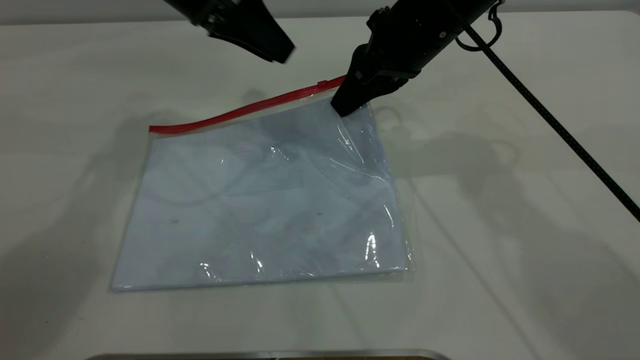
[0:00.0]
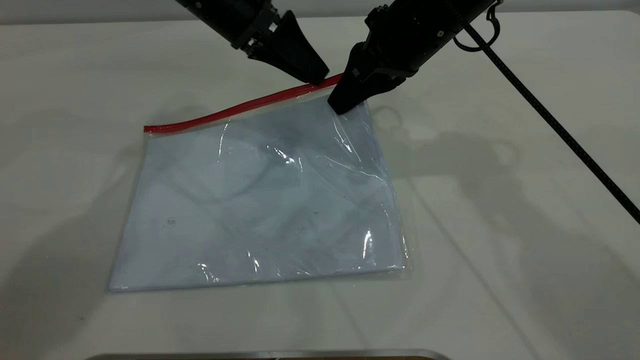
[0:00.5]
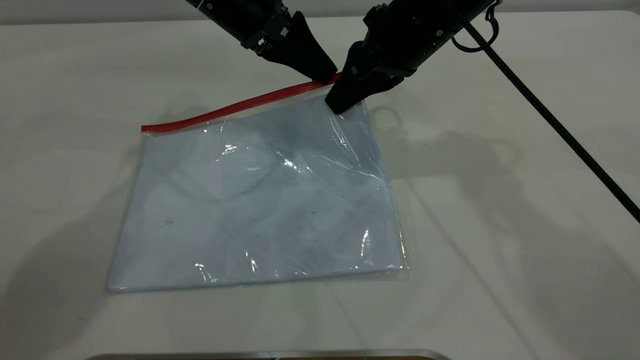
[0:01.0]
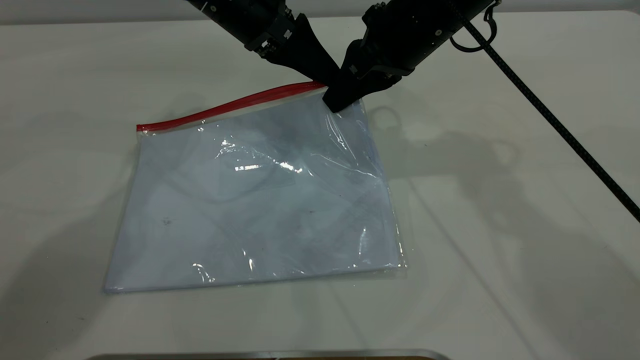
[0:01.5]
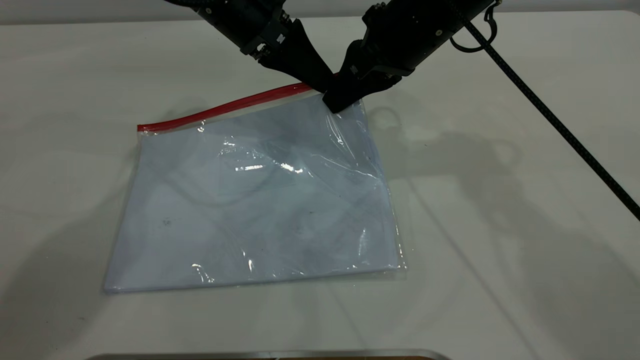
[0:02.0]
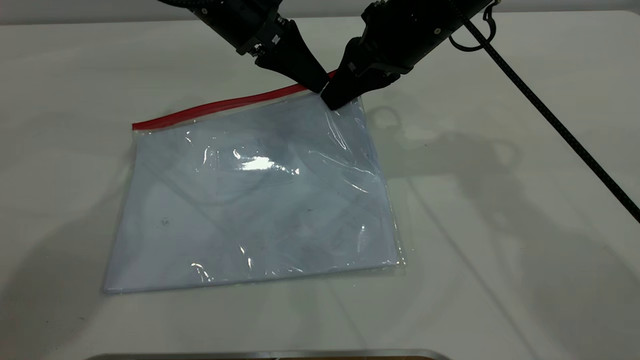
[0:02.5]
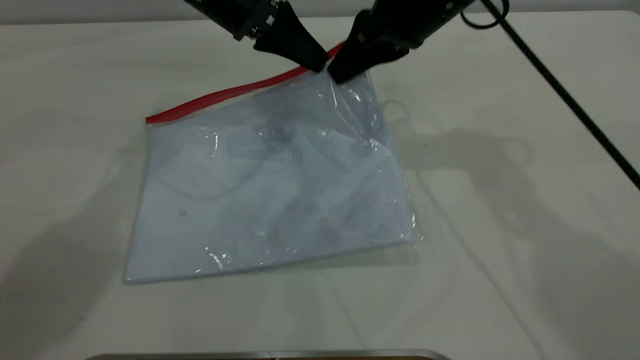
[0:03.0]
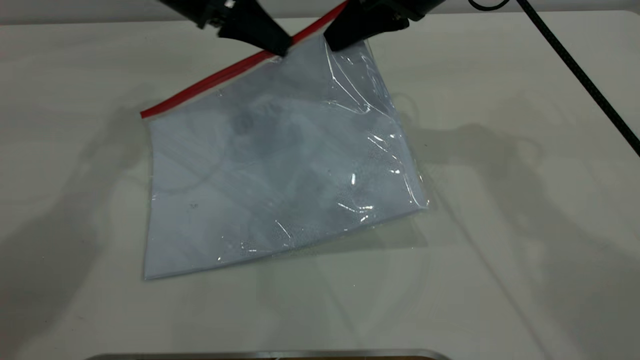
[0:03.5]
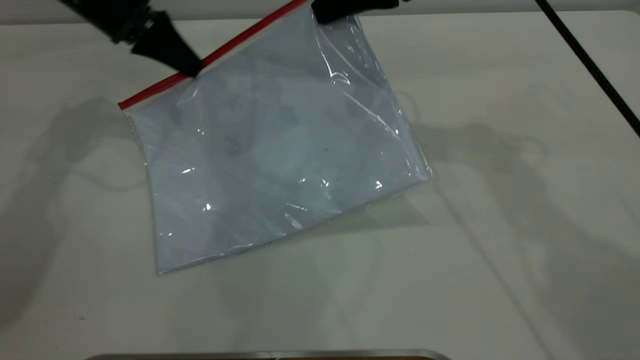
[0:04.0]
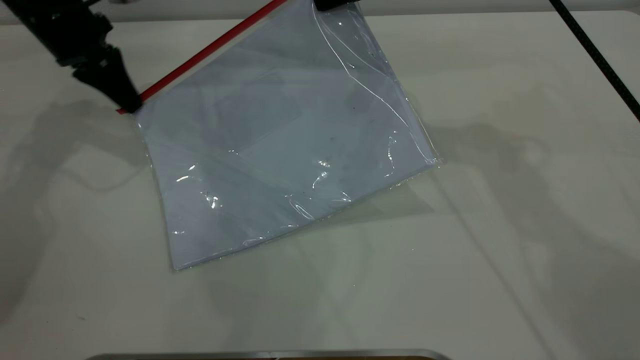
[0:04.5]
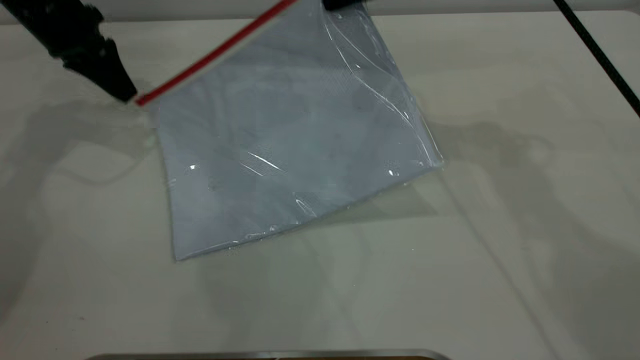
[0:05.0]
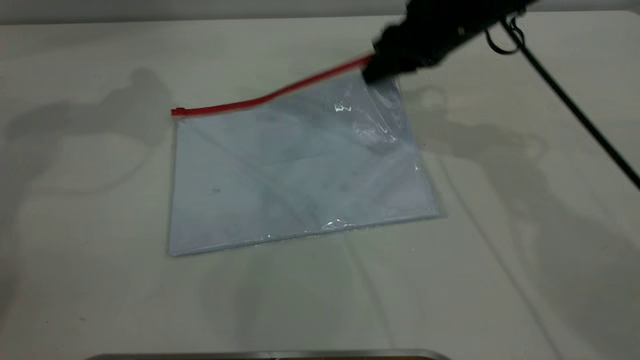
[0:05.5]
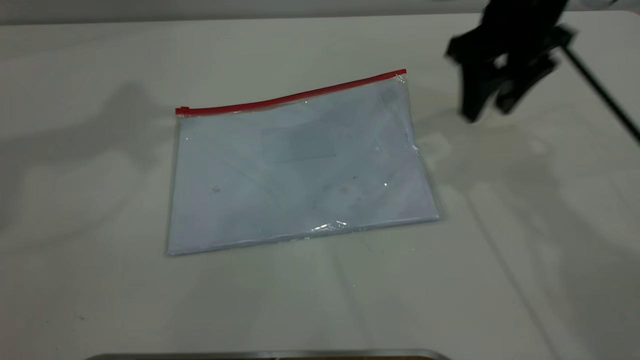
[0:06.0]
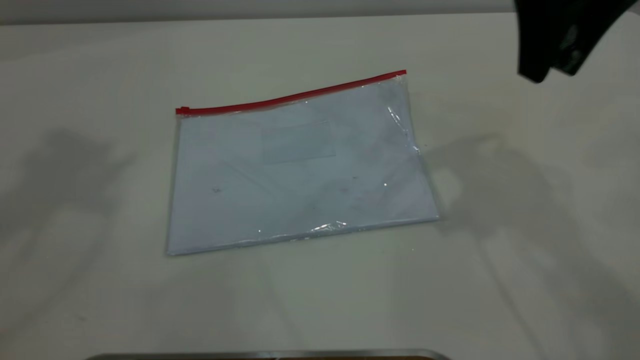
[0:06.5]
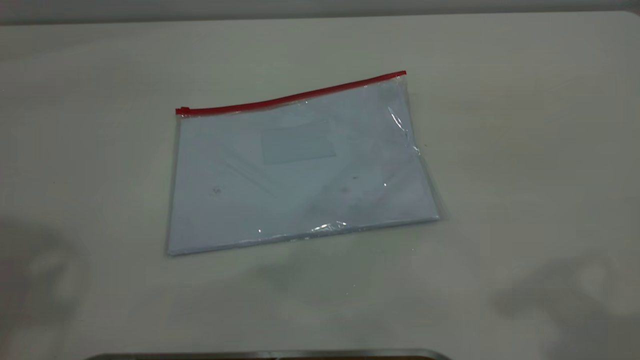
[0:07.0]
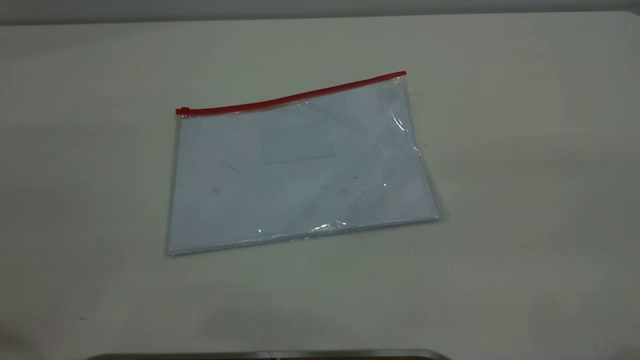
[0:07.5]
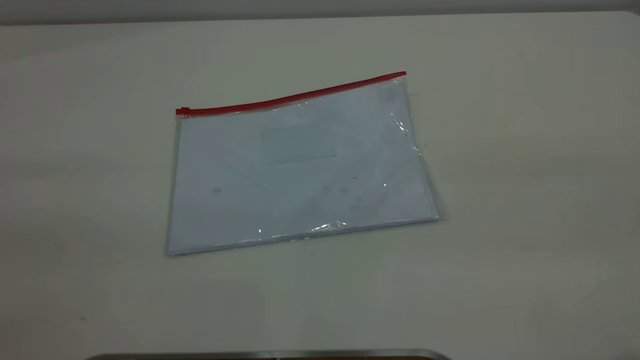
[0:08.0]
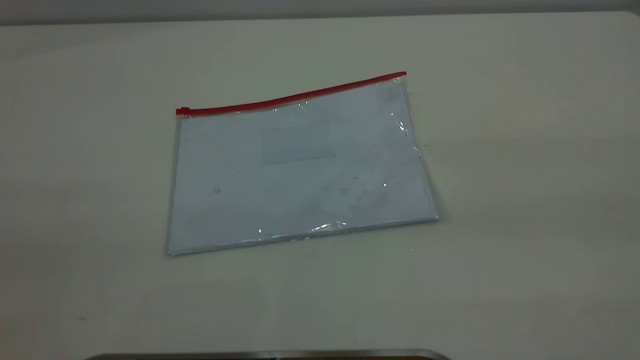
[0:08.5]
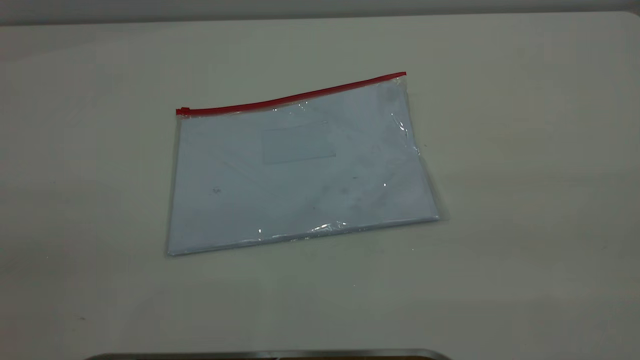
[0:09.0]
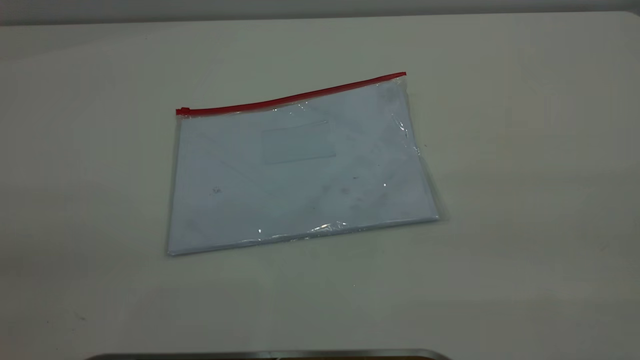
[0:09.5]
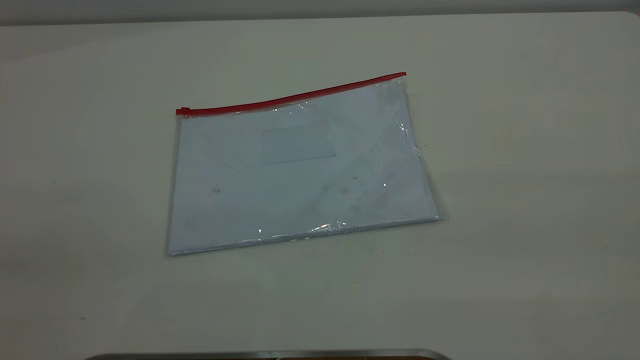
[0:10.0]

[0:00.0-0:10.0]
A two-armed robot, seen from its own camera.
Step, 0:00.0 to 0:05.0: Pulling up the zipper on the transparent plastic bag with the left gripper to close it.
Step, 0:05.5 to 0:06.5: Place the transparent plastic bag.
0:00.0 to 0:02.0: The left gripper closes its fingers.
0:02.0 to 0:04.0: The left gripper is displaced to the left by about 15 cm, and closes. Meanwhile the right gripper moves upward, about 5 cm.
0:04.0 to 0:06.0: The right gripper is displaced to the right by some 5 cm, goes downward and returns, approximately 10 cm each way, and opens. The left gripper moves upward, approximately 30 cm, and opens up.
0:06.0 to 0:08.0: The right gripper shifts some 35 cm backward and upward.
